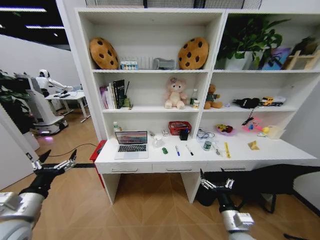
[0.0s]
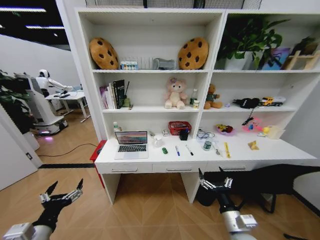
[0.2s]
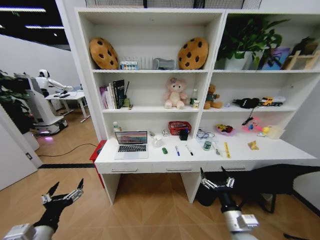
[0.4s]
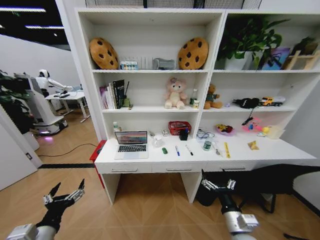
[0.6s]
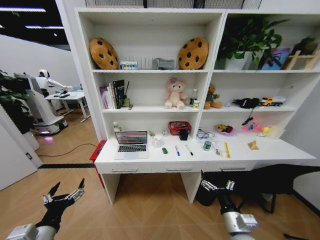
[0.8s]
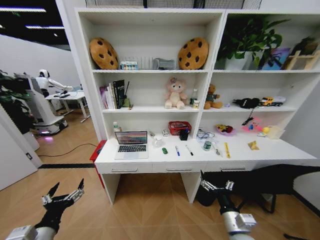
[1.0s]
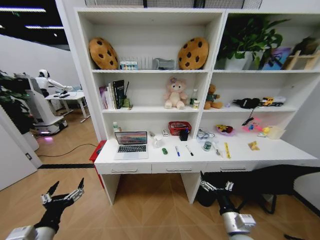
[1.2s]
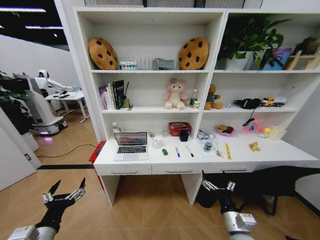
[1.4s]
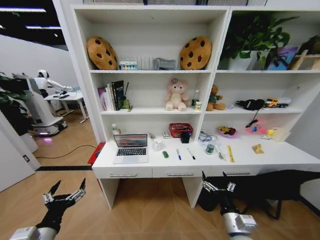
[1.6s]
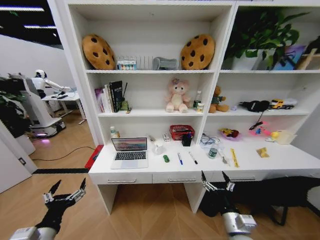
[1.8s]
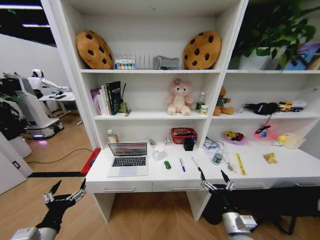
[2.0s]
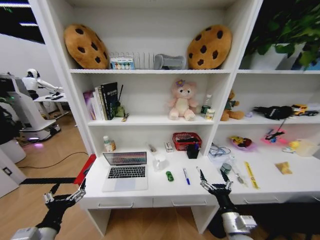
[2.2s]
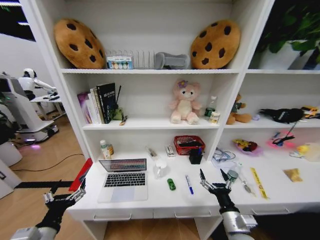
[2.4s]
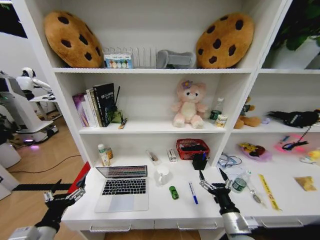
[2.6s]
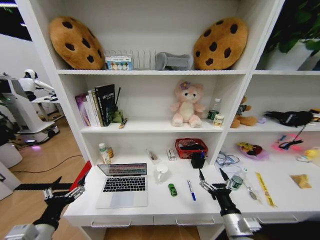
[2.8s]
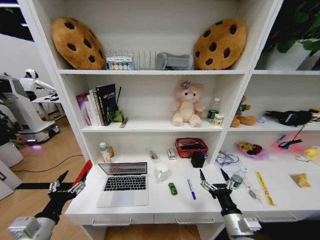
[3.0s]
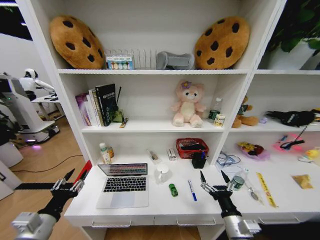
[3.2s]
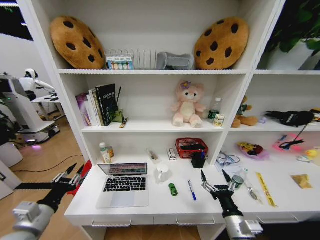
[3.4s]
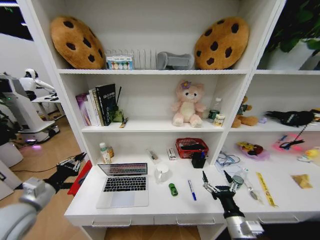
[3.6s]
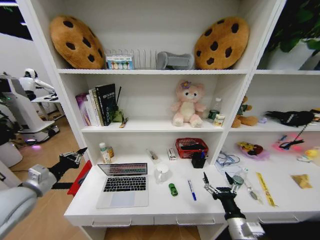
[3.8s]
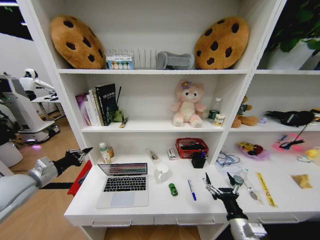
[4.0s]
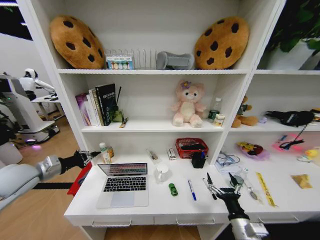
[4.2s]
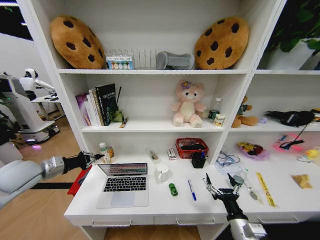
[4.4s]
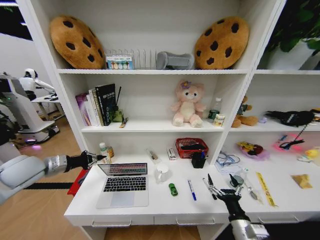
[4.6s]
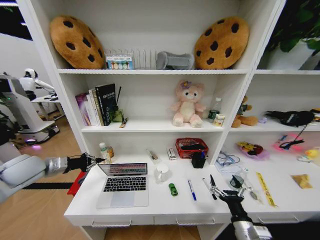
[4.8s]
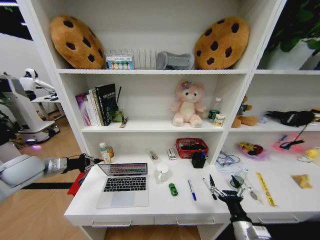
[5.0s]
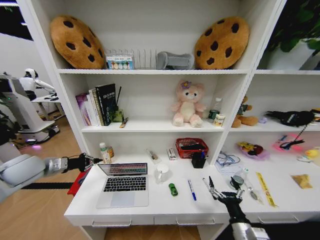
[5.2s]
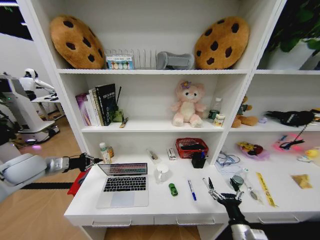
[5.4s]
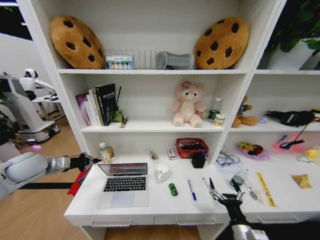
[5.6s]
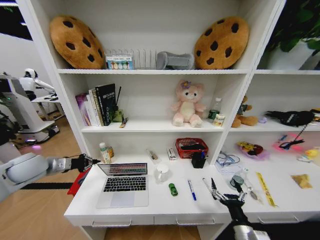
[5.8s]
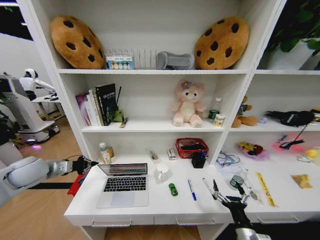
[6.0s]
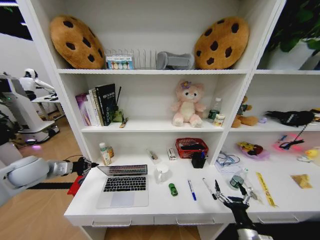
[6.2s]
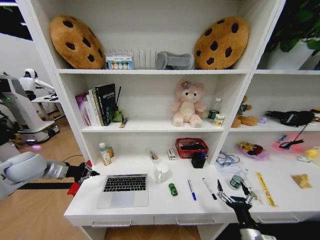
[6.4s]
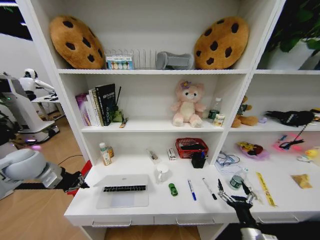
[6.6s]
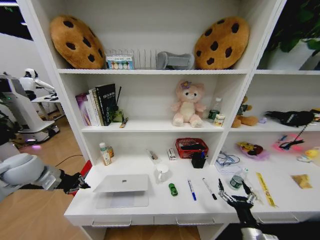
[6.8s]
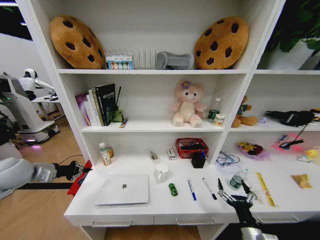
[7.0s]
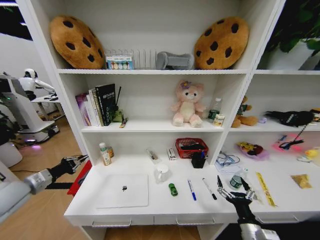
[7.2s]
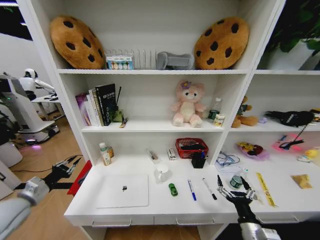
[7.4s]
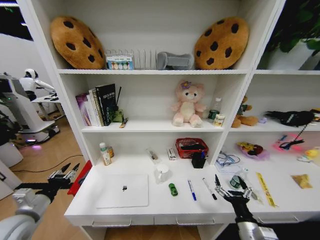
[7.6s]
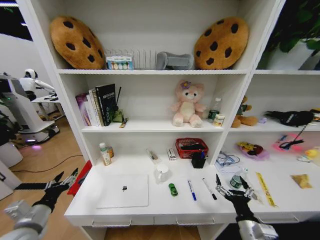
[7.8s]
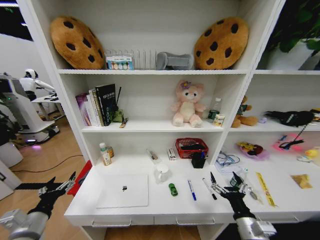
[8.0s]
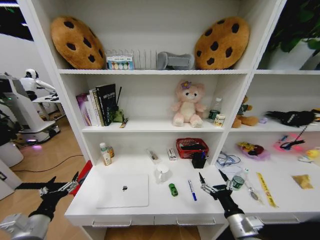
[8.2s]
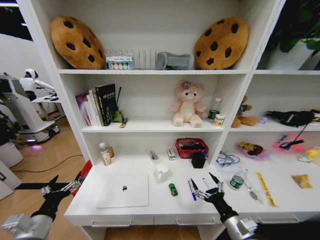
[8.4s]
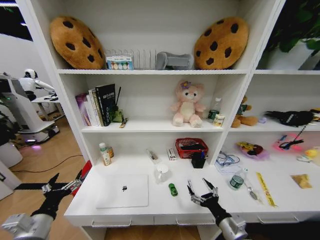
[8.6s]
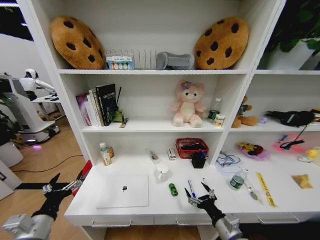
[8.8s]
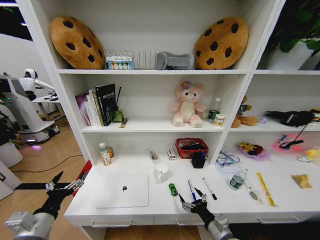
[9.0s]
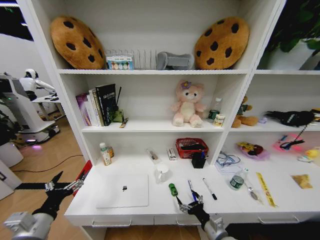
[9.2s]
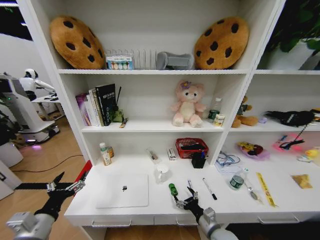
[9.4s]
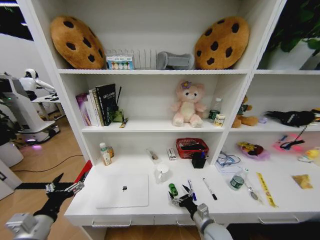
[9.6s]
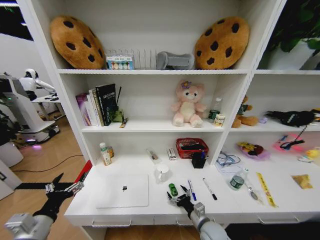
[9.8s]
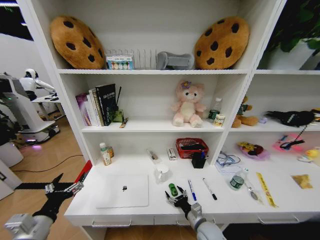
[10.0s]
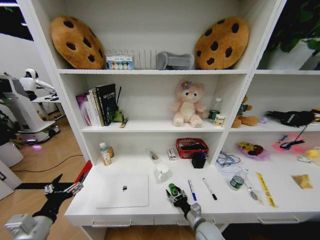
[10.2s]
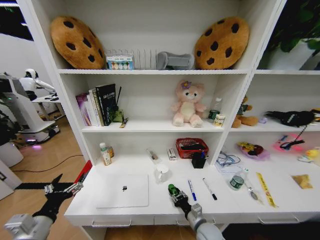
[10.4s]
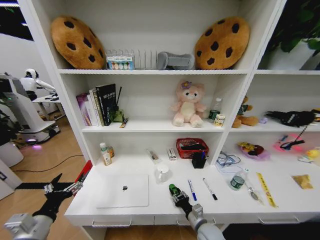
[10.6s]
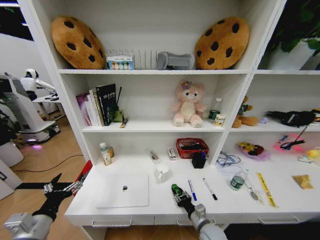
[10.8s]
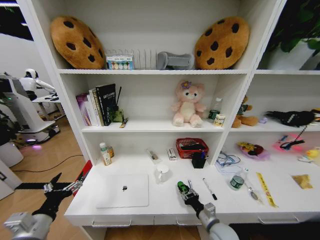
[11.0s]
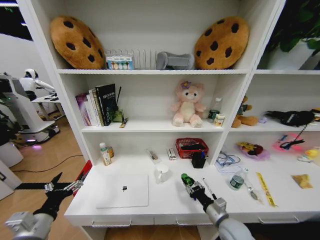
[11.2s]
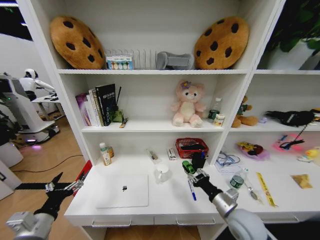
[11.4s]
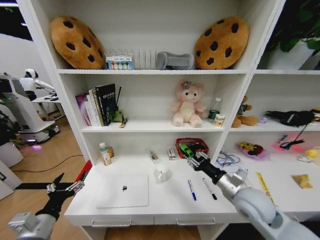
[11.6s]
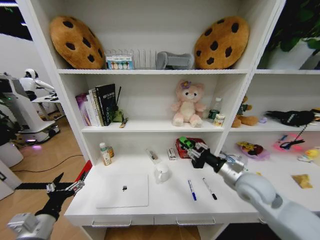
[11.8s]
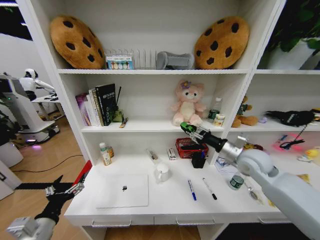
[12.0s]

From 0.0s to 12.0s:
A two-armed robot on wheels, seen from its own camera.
Task of the whole recording: Organize the objects on the table.
From 3.0s to 4.4s: The left gripper moves forward, upward and to the left, approximately 25 cm, and closes.
From 6.0s to 7.6s: The left gripper travels backward and downward by roughly 20 cm, and opens its fingers.
From 7.6s to 9.0s: The left gripper goes some 10 cm to the right and backward, and opens its fingers, while the right gripper is displaced to the left by approximately 5 cm.
From 9.0s to 10.4s: The right gripper is displaced downward and forward by approximately 10 cm, and closes up.
From 10.4s to 12.0s: The right gripper travels upward, forward and to the right by approximately 35 cm.

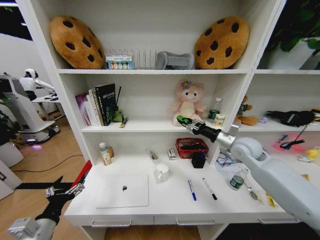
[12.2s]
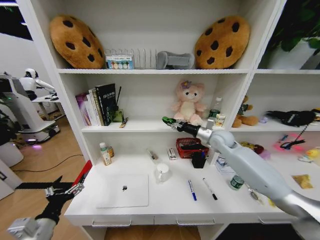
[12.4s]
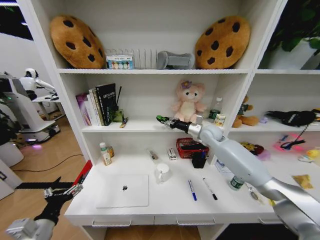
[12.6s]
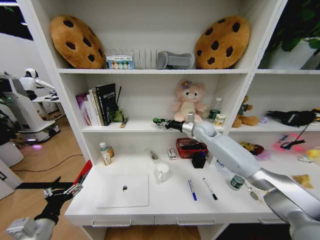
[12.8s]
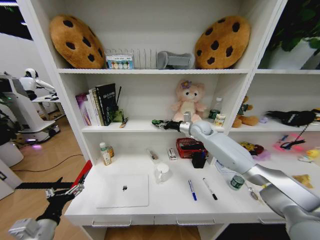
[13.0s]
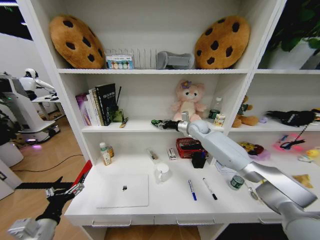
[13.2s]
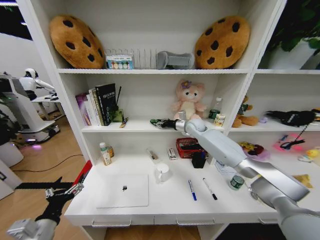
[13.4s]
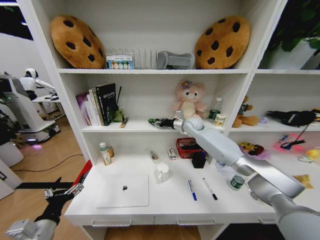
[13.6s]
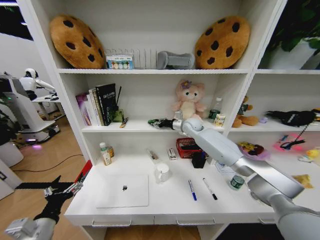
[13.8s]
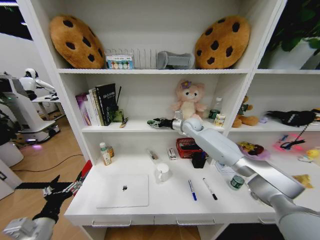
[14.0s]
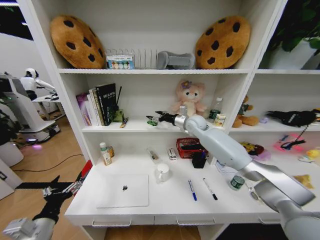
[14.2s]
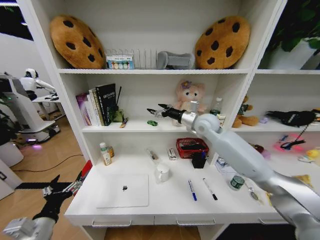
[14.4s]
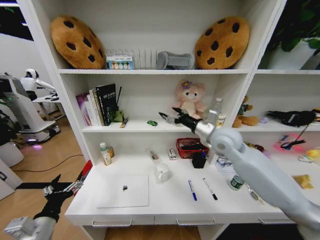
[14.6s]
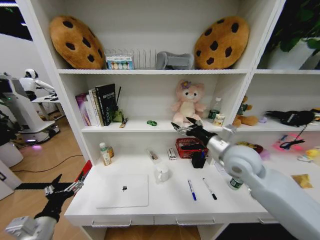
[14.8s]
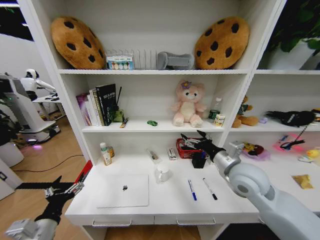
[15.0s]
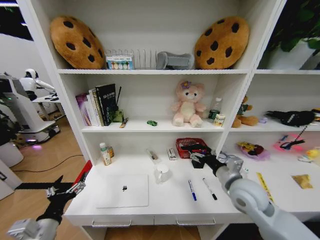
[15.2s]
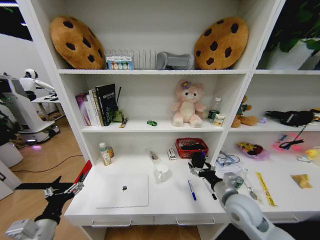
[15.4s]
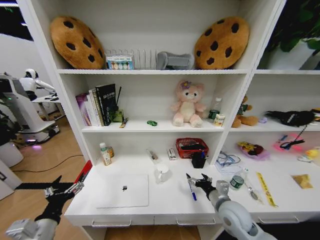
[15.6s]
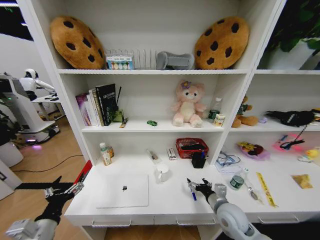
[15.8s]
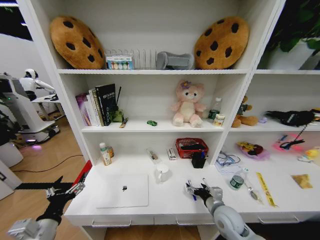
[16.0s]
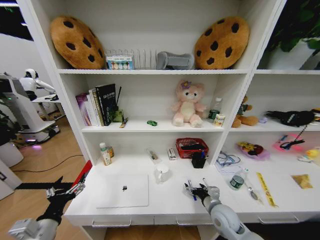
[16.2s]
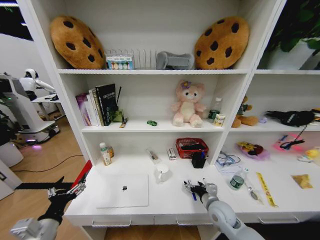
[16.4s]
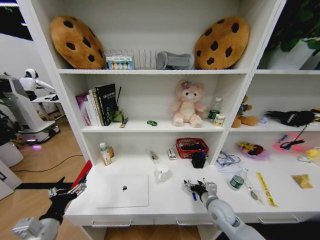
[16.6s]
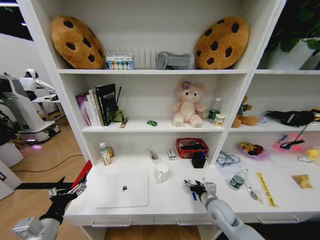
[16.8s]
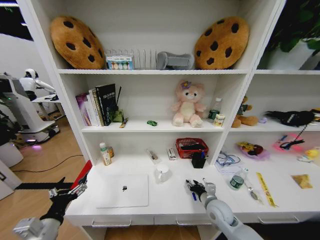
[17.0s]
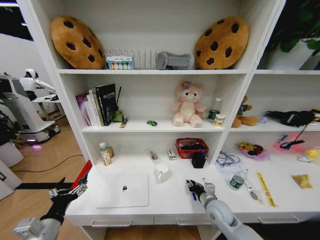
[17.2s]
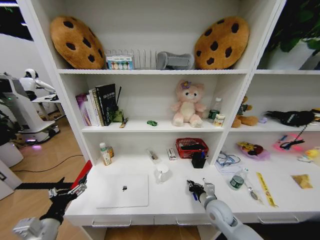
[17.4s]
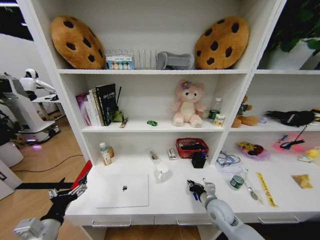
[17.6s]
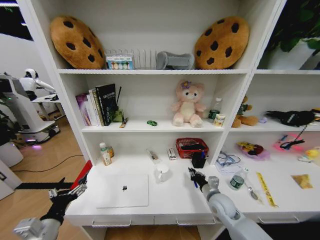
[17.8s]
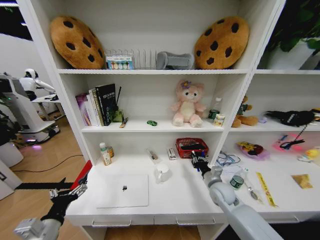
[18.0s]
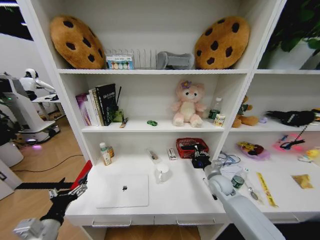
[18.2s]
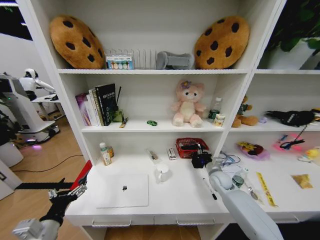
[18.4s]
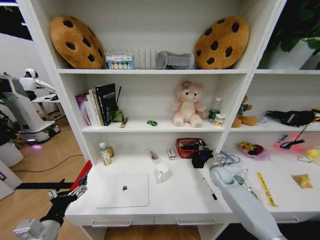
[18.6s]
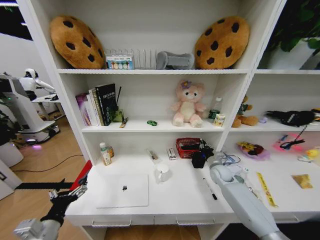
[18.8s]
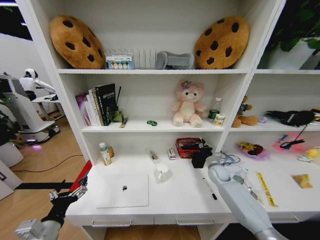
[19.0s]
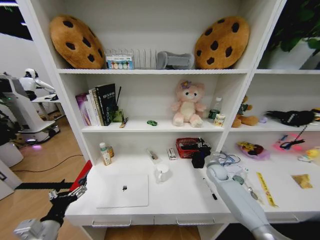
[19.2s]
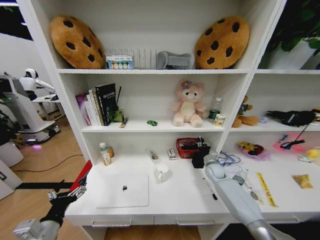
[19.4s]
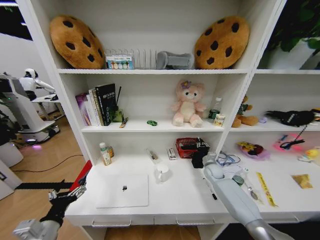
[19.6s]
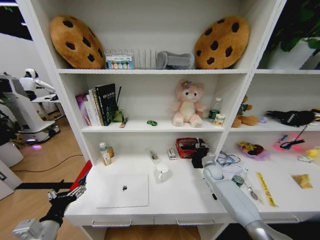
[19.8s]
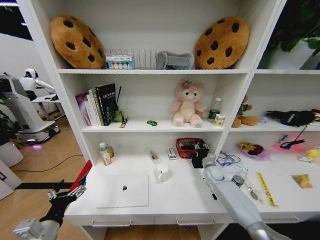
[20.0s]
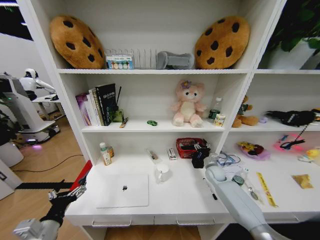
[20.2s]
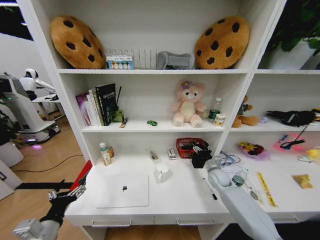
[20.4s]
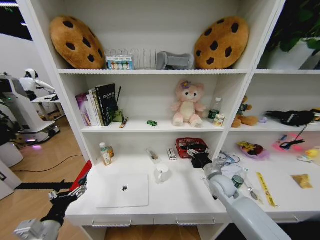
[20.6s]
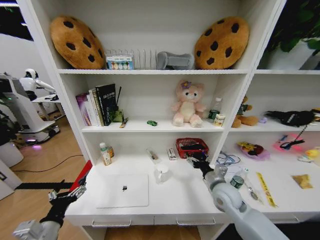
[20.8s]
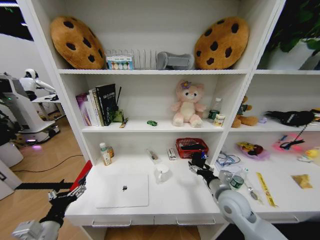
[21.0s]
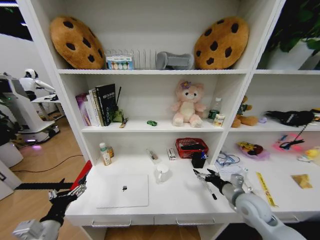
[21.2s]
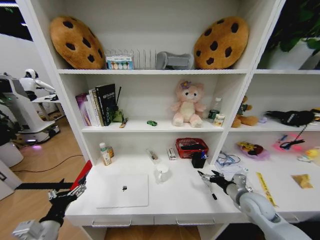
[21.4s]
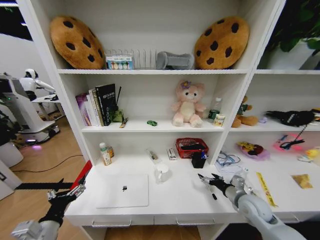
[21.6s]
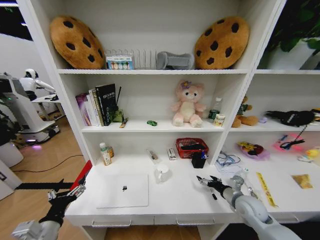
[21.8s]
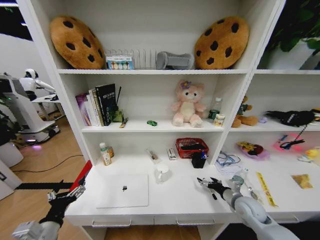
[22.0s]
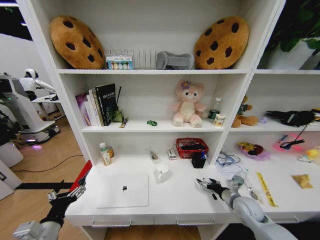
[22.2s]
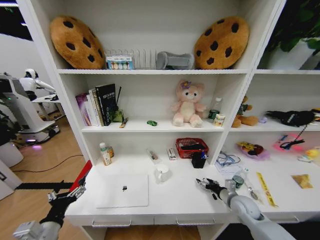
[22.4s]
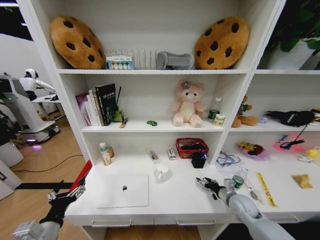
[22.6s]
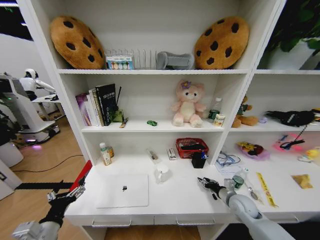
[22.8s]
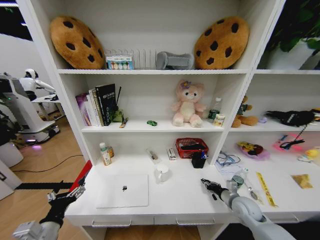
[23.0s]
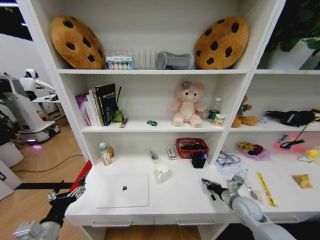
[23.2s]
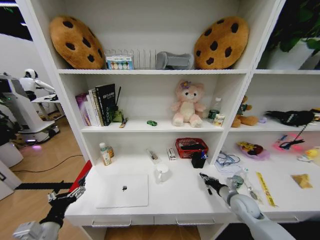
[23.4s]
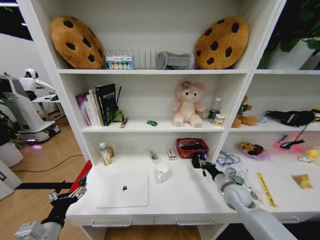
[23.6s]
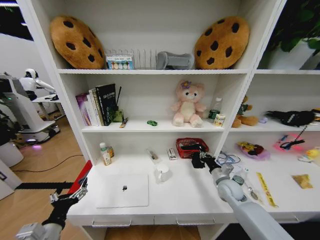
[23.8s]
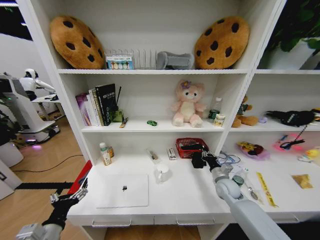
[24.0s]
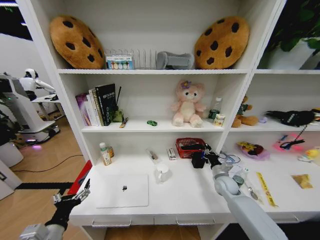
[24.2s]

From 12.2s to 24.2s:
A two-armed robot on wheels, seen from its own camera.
Task of the whole recording: Organize the objects on the table.
From 12.2s to 13.8s: The right gripper travels forward and to the left by approximately 20 cm.
From 13.8s to 15.2s: The right gripper goes roughly 35 cm backward, and opens.
From 15.2s to 16.6s: The right gripper travels downward by about 15 cm.
From 16.6s to 18.2s: The right gripper goes about 10 cm forward, and closes its fingers.
From 18.2s to 19.8s: The right gripper goes roughly 10 cm forward.
From 19.8s to 21.2s: The right gripper shifts about 25 cm backward and upward, and opens.
From 21.2s to 22.6s: The right gripper goes approximately 10 cm downward.
From 22.6s to 24.2s: The right gripper is displaced forward by approximately 10 cm, and closes up.
